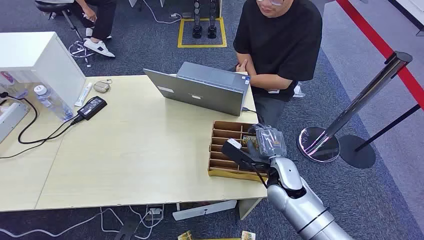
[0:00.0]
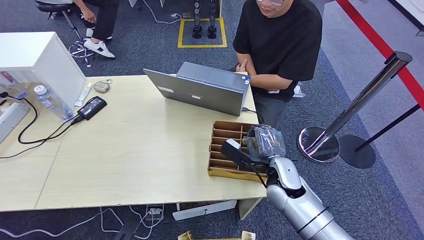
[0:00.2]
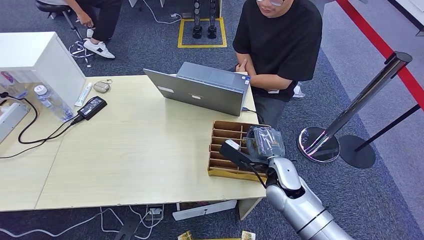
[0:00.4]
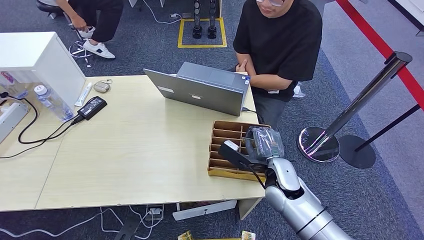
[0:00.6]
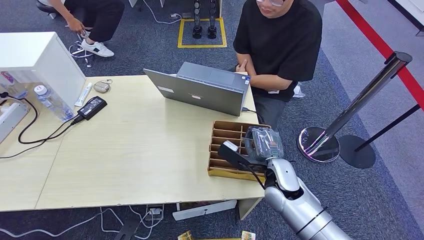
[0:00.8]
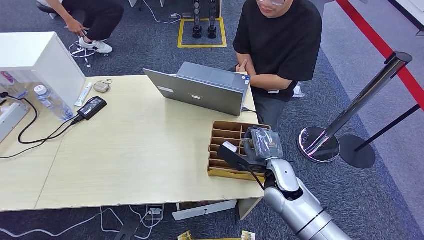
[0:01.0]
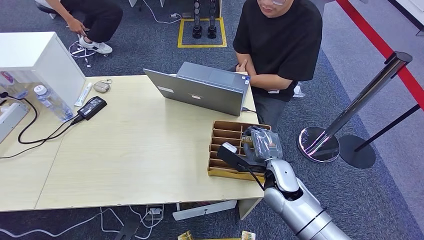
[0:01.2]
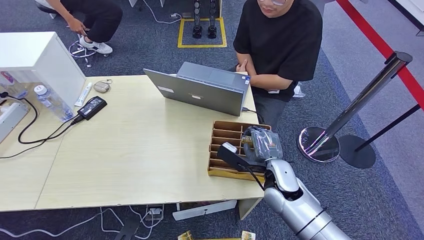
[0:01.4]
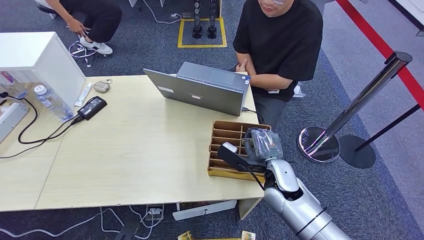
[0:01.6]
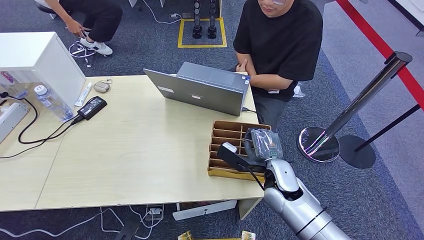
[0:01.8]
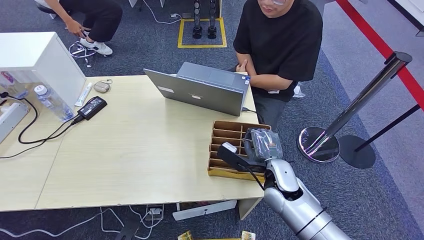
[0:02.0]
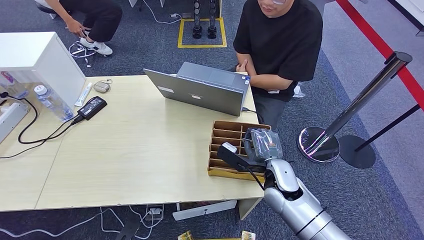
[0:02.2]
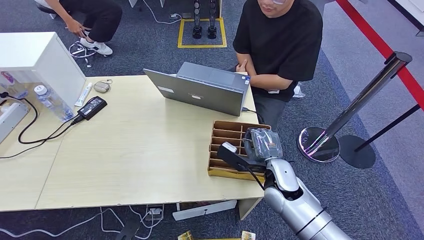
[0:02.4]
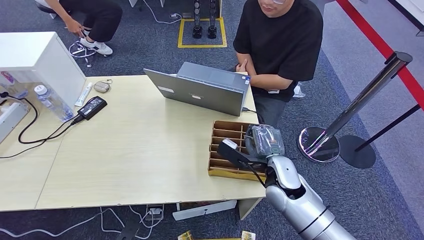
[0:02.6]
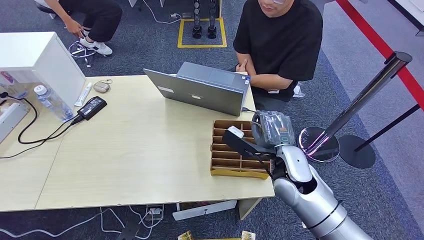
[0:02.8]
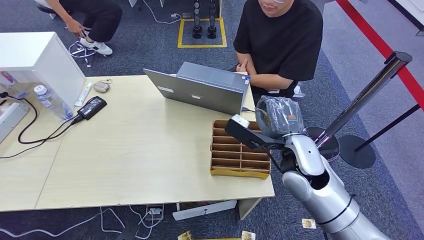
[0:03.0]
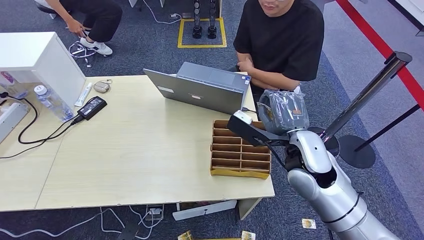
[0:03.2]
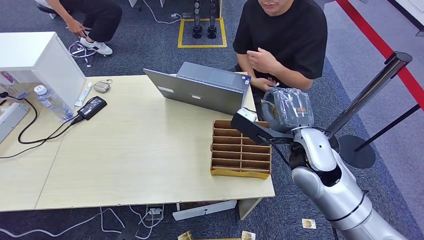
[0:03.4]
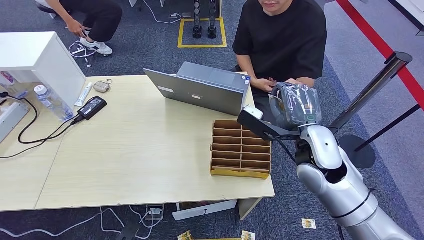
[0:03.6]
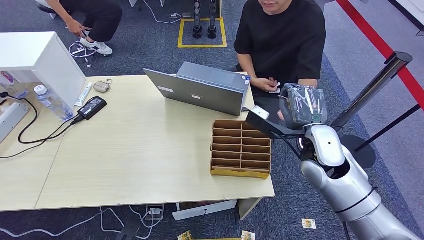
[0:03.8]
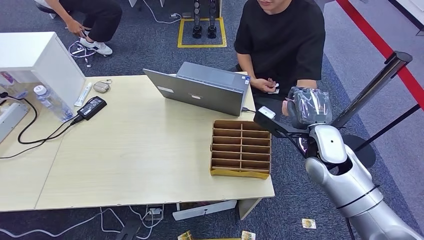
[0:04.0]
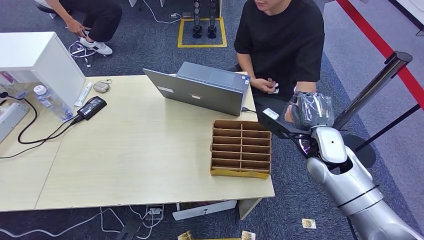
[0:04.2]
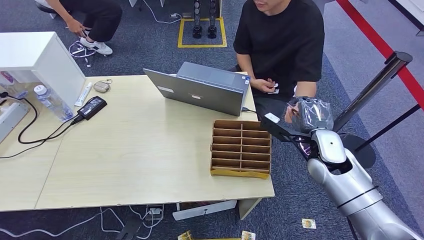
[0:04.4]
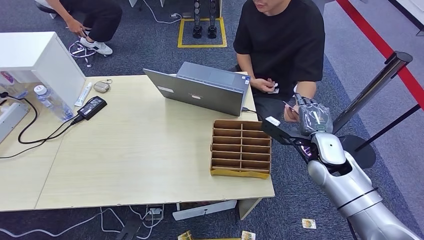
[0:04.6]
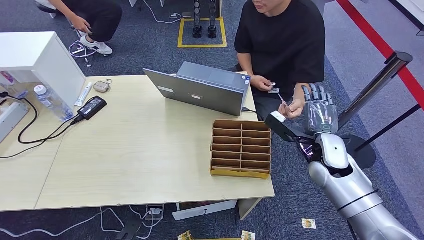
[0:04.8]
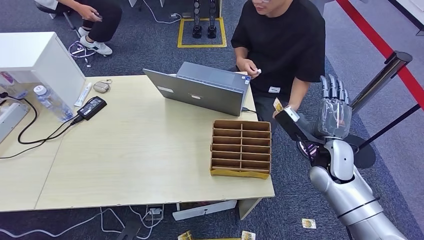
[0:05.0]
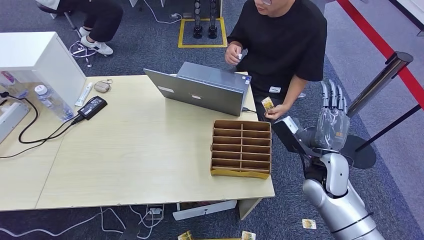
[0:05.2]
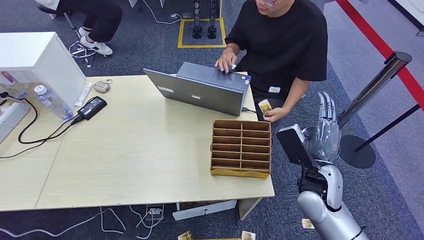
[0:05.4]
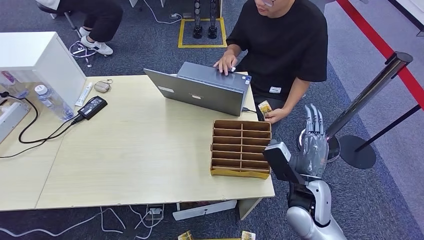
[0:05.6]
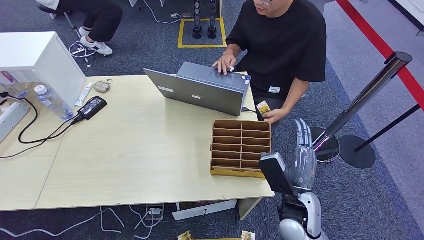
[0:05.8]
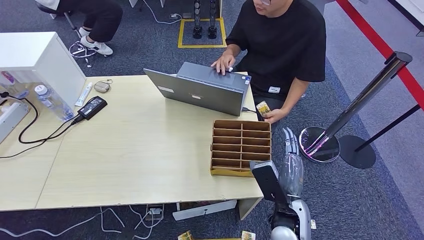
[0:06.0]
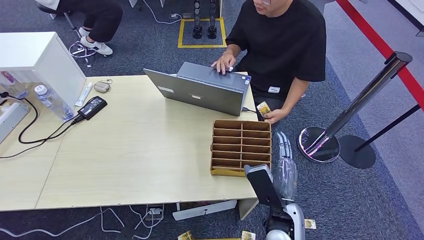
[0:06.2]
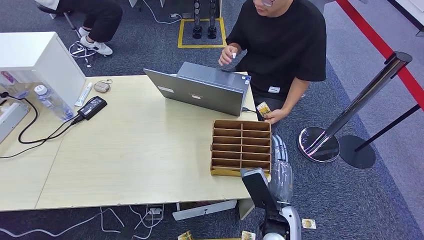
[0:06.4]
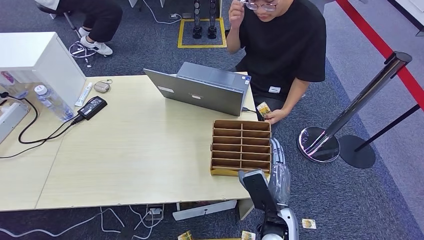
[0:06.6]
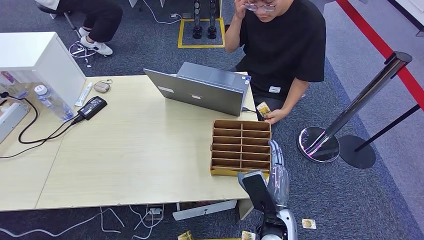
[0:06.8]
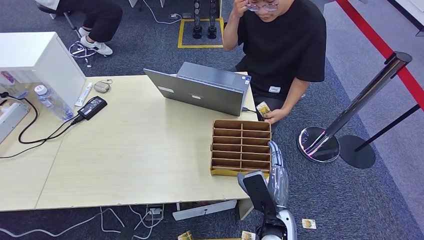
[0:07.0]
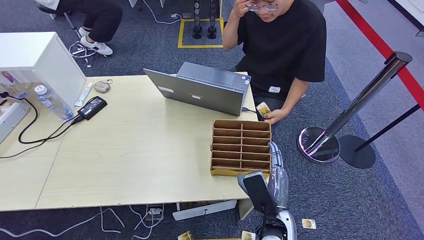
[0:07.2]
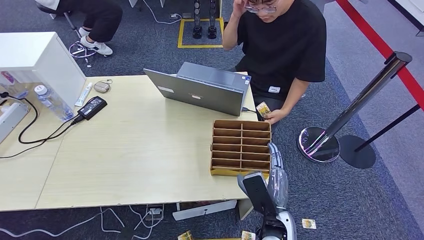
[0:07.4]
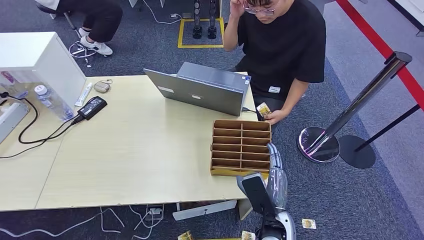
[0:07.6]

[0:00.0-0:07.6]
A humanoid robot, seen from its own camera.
Step, 0:00.0 to 0:02.6: Pick up the room card from the card holder.
Step, 0:02.8 to 0:06.6: Hand the room card to the target.
0:01.6 to 0:03.0: The right hand goes approximately 10 cm upward.
0:03.0 to 0:04.6: The right hand moves to the right, approximately 10 cm.
0:04.6 to 0:06.0: The right hand is displaced backward, to the left and downward by roughly 20 cm.
0:06.0 to 0:07.6: The hands make only small movements.
